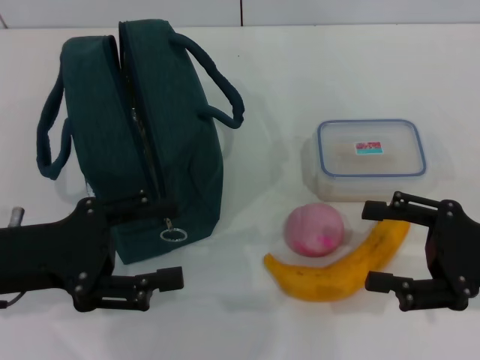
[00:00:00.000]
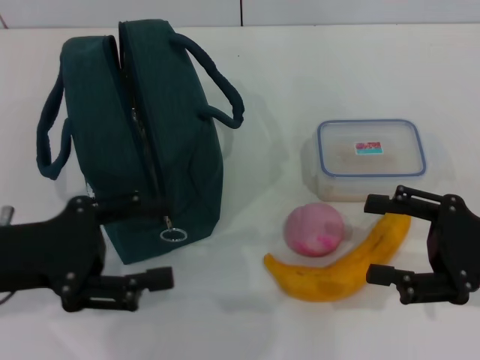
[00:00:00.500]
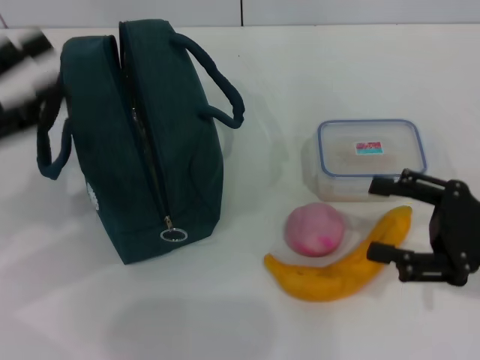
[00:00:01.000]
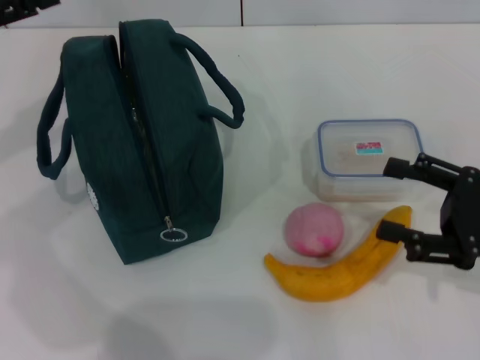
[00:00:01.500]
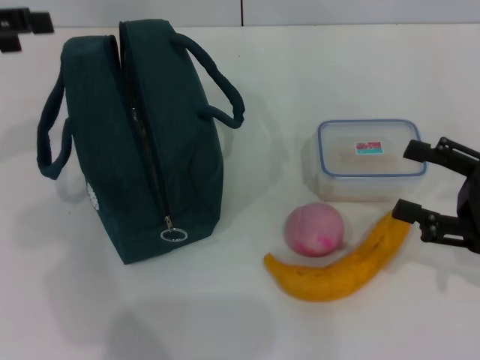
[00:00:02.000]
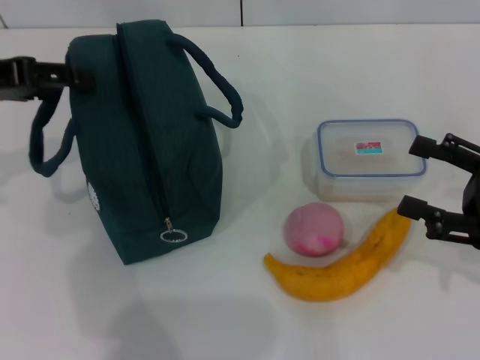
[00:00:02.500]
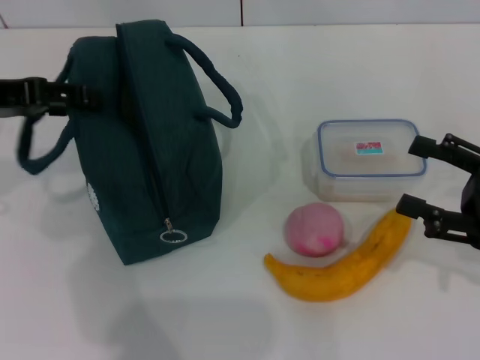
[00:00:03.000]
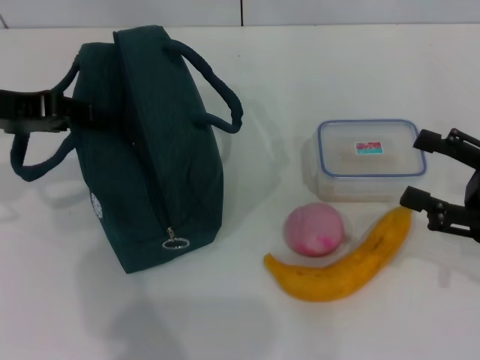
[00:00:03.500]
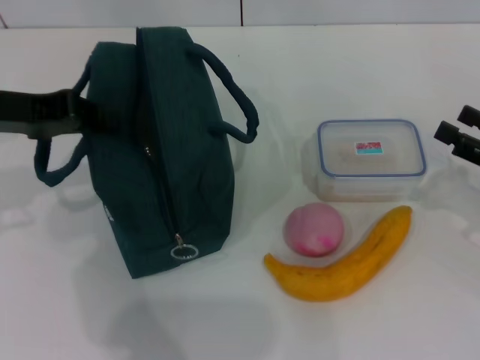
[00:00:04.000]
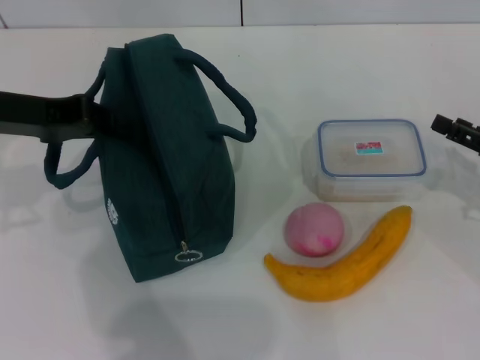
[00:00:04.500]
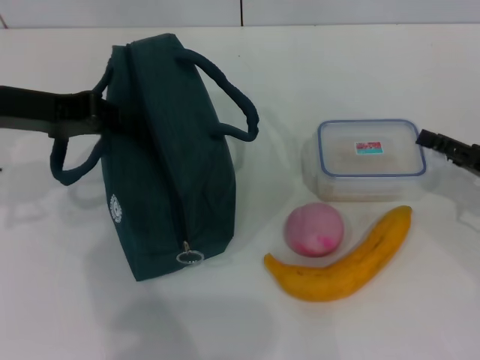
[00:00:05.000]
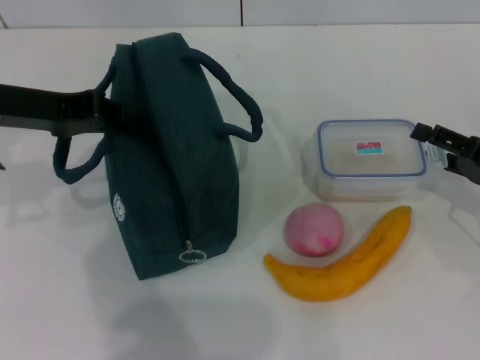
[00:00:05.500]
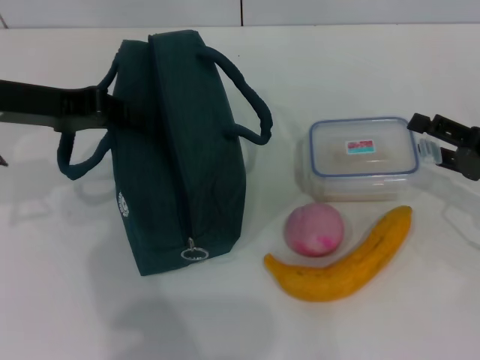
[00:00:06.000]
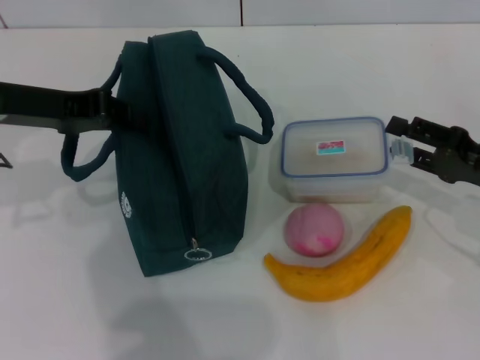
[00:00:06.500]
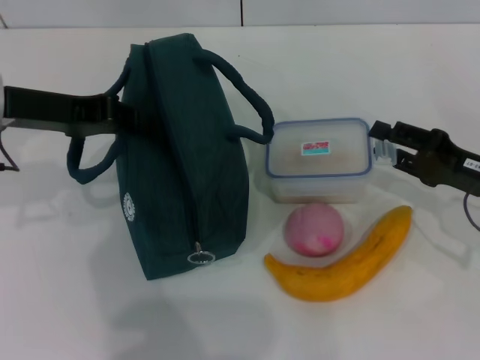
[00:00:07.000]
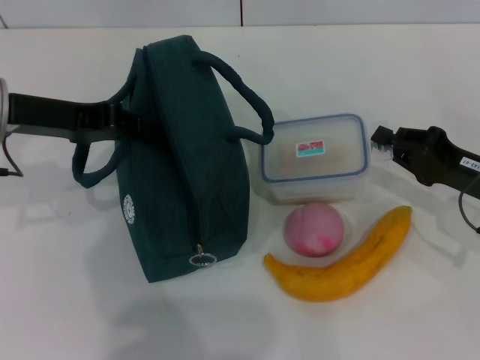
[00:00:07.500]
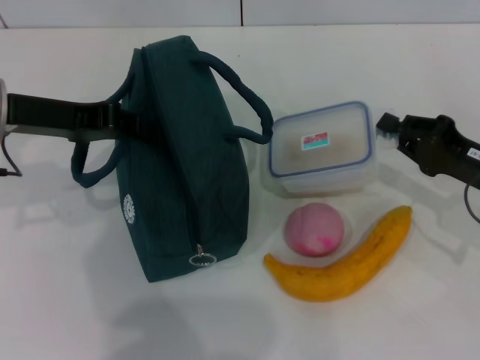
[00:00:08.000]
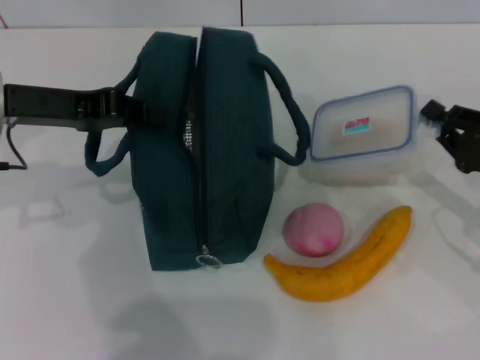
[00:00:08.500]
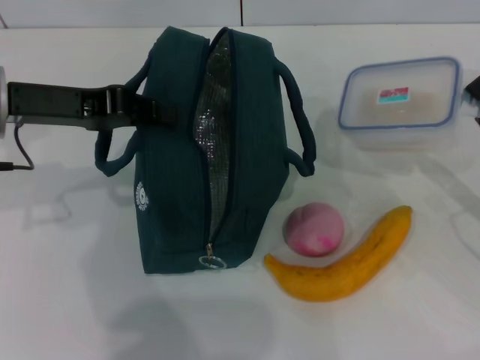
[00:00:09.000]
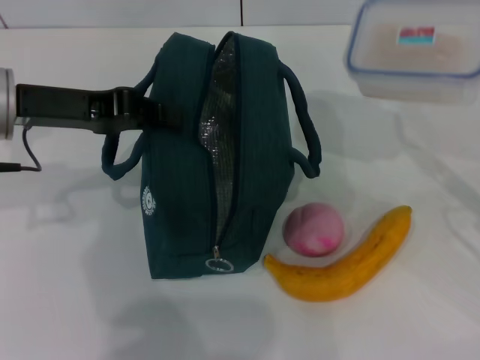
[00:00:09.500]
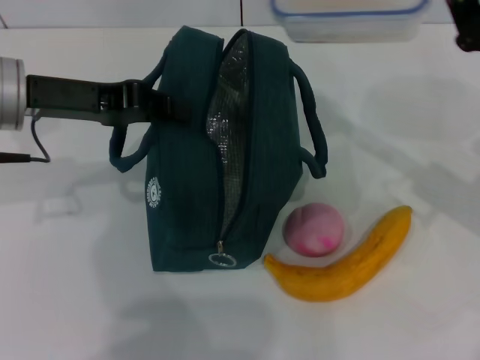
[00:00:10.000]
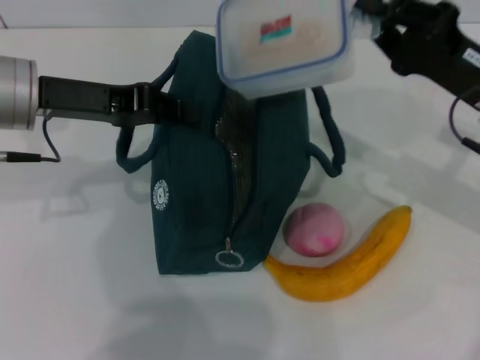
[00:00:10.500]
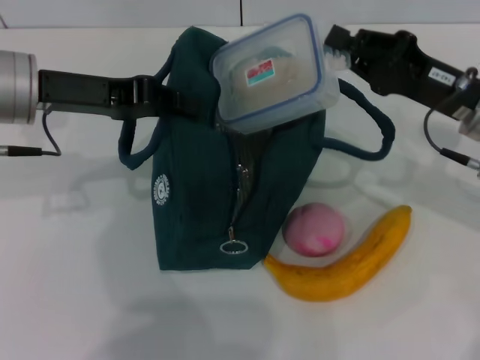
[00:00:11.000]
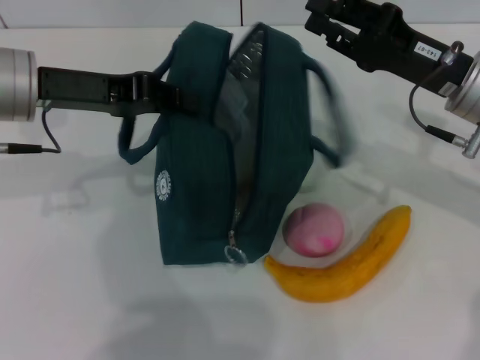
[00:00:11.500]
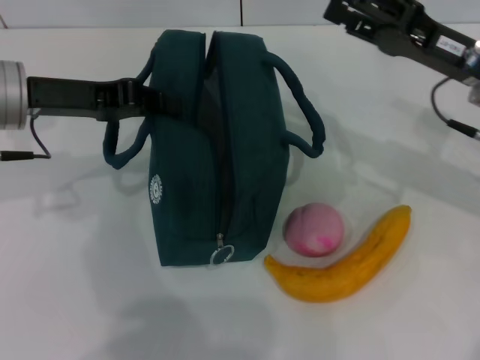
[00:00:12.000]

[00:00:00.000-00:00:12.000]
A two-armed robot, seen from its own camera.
Step, 00:00:00.000 to 00:00:04.000: Hold the lunch bag with your left hand.
Step, 00:00:04.500 to 00:00:07.500: Pick up the lunch box with your right hand.
Step, 00:00:08.000 to 00:00:11.500: Place the lunch box into the lunch bag with your right hand.
00:00:00.000 to 00:00:02.000: The left gripper goes some 15 cm upward, forward and to the left.
00:00:02.000 to 00:00:04.000: The left gripper heads to the right, covering roughly 5 cm, and closes.
00:00:06.000 to 00:00:08.000: The right gripper closes.
00:00:08.000 to 00:00:10.000: The right gripper moves upward, about 10 cm.
00:00:10.000 to 00:00:12.000: The right gripper changes place by roughly 5 cm, and opens its fingers.

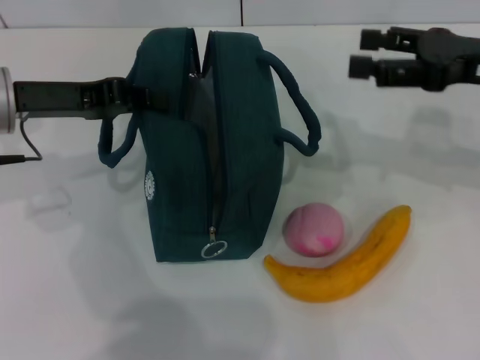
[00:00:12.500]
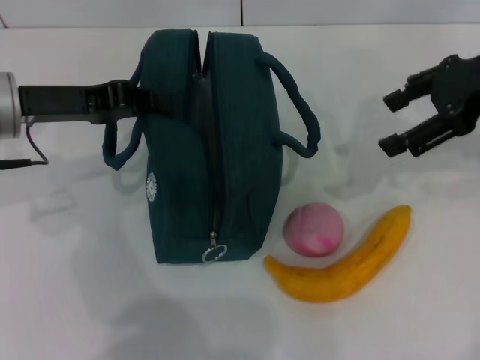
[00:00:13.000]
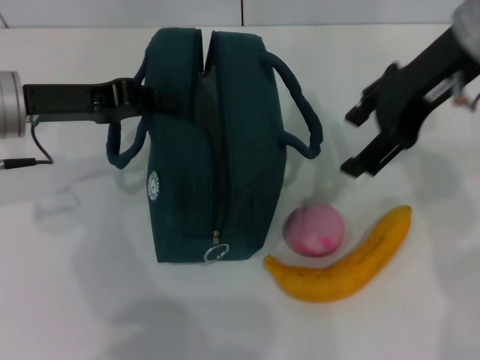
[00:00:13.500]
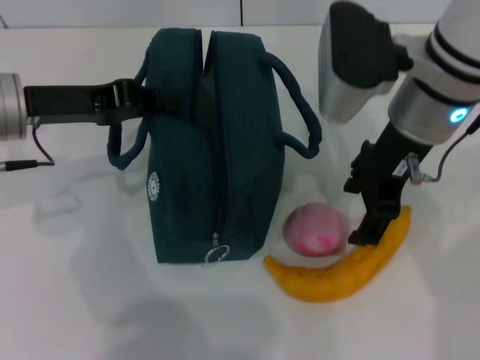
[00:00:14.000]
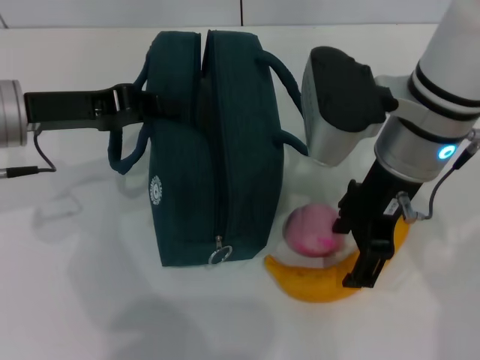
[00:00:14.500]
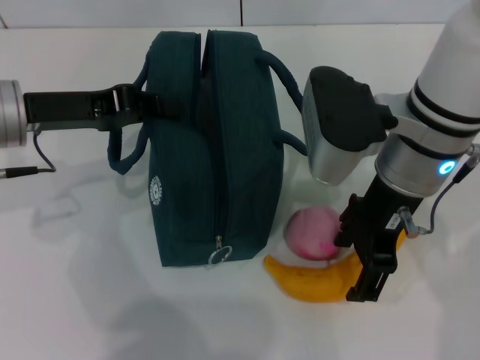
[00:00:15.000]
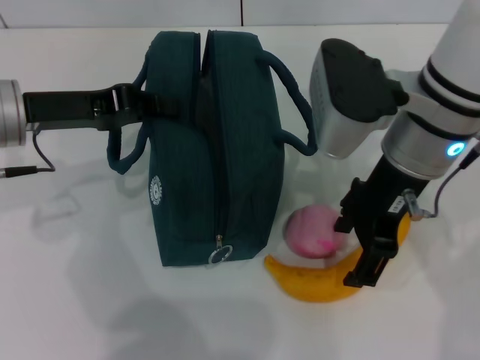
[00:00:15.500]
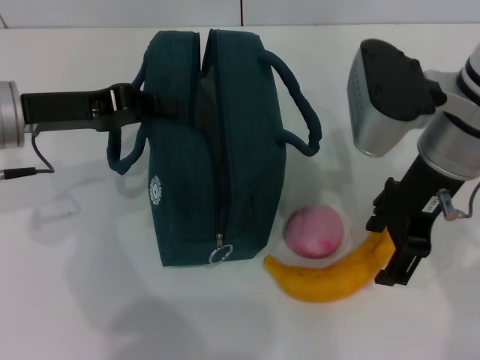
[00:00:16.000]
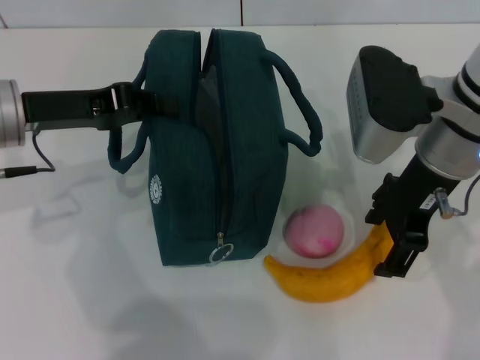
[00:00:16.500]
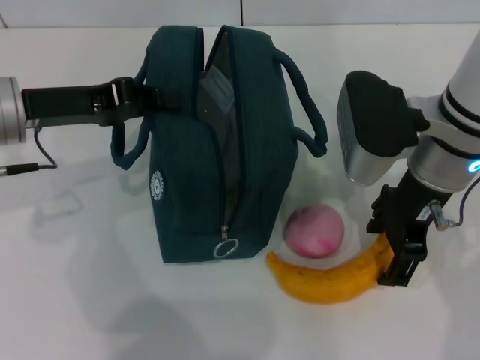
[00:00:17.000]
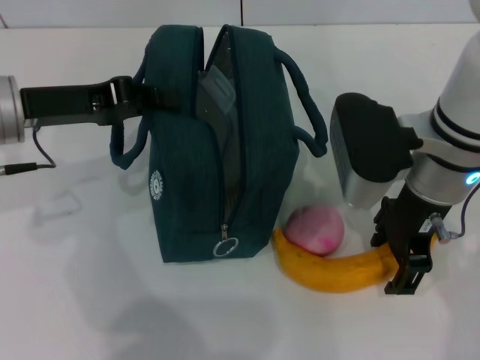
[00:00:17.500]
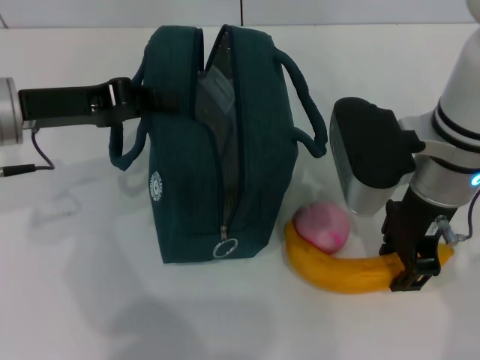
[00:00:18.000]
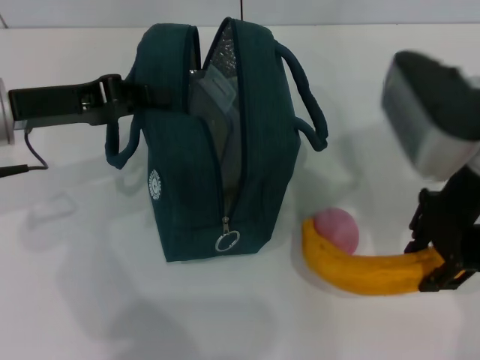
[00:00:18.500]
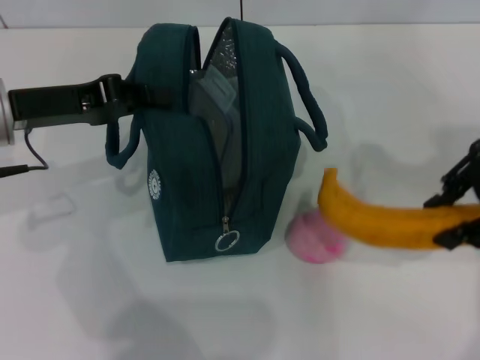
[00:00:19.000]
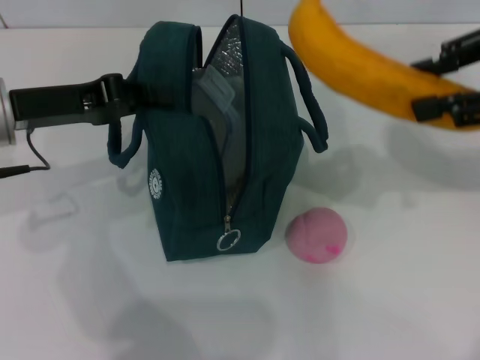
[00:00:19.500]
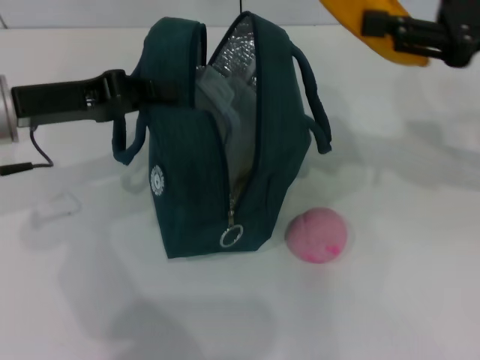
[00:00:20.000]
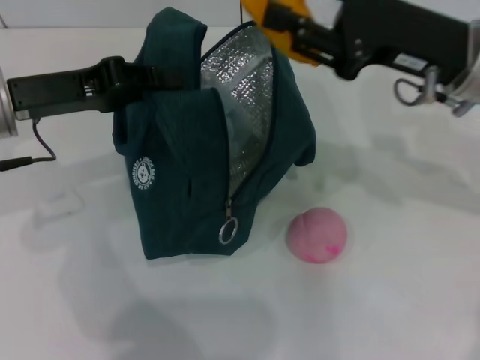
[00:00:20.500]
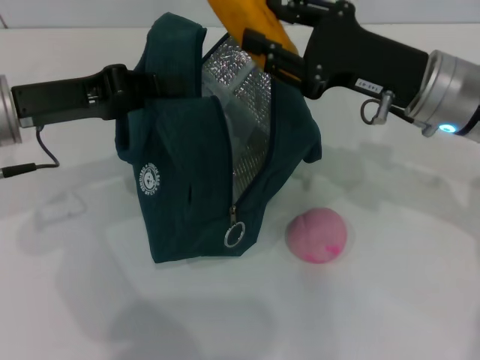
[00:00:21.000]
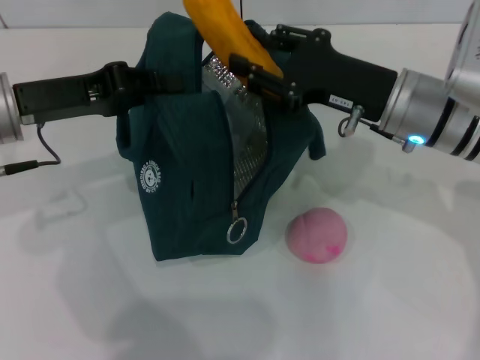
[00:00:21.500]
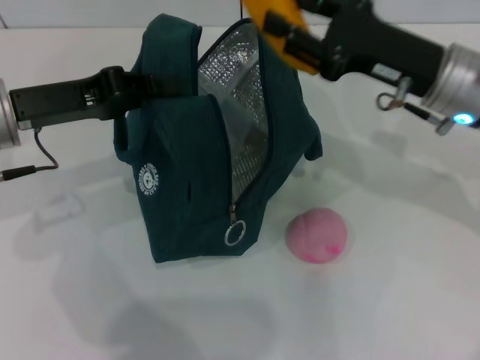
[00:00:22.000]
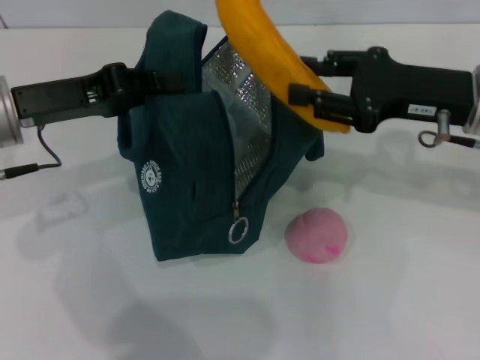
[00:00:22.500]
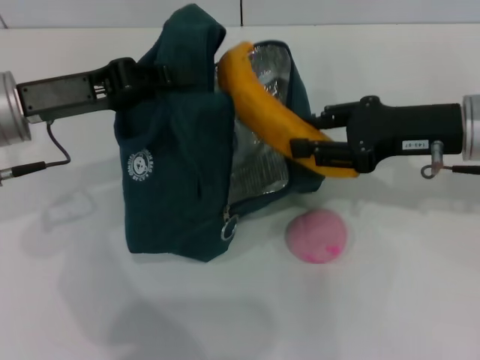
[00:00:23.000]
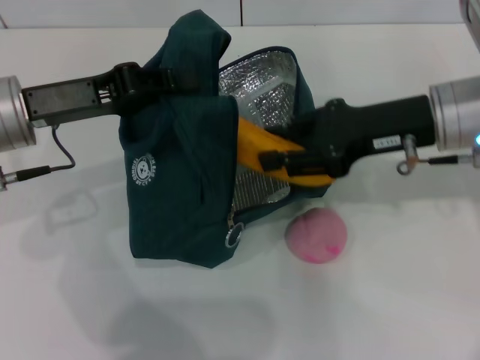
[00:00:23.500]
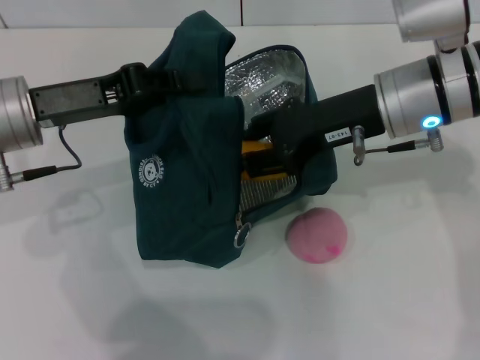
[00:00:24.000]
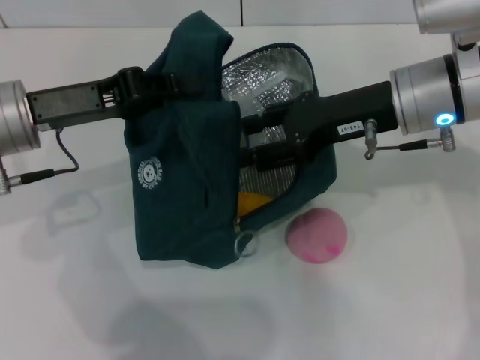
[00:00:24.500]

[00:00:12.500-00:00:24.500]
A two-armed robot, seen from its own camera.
Step, 00:00:12.500 to 00:00:18.000: Take the banana with your right hand.
00:00:12.500 to 00:00:14.500: The right gripper heads to the left, covering about 15 cm.
00:00:14.500 to 00:00:16.500: The grippers stay close to where they were, moving slightly.
00:00:16.500 to 00:00:18.500: The right gripper closes its fingers.
00:00:18.500 to 00:00:20.500: The right gripper reaches about 10 cm to the right, then returns.
00:00:22.500 to 00:00:24.500: The right gripper goes roughly 5 cm to the left.

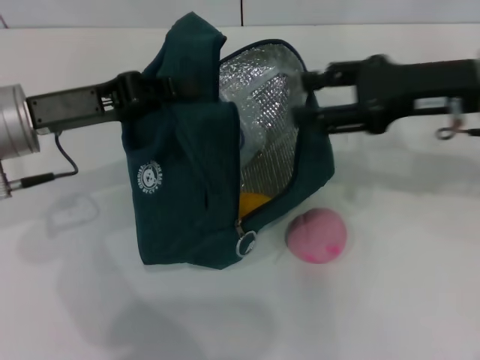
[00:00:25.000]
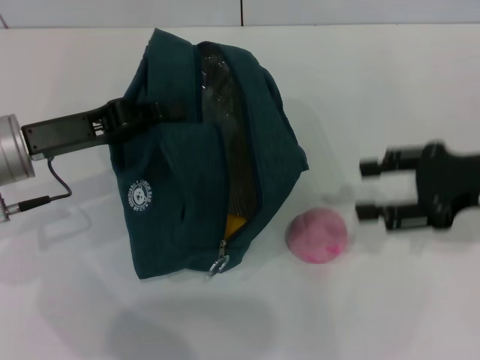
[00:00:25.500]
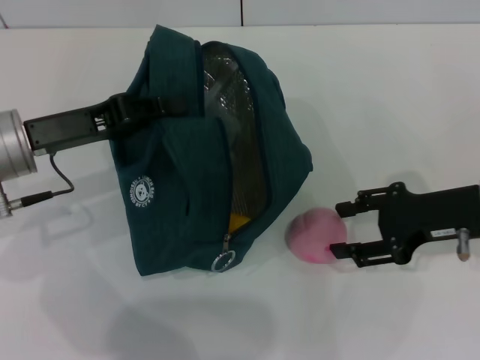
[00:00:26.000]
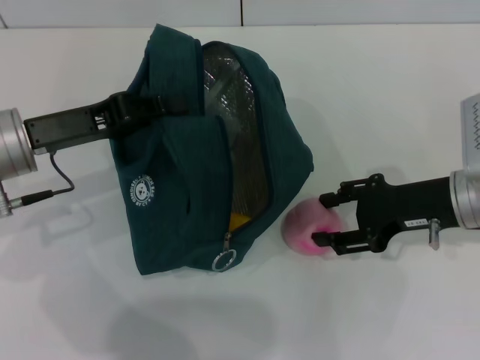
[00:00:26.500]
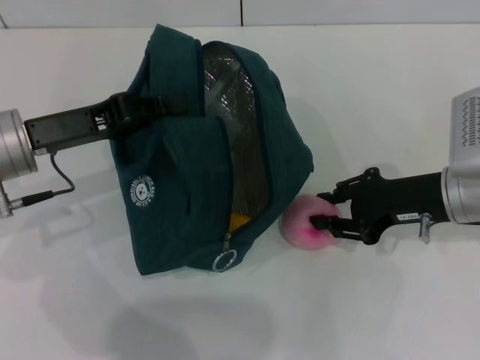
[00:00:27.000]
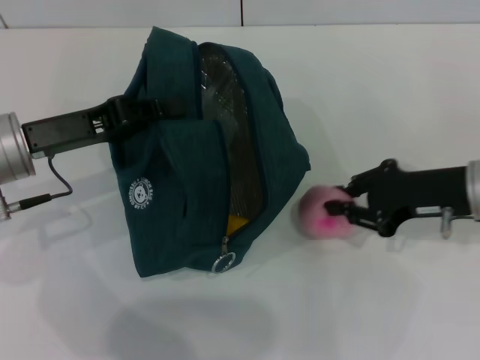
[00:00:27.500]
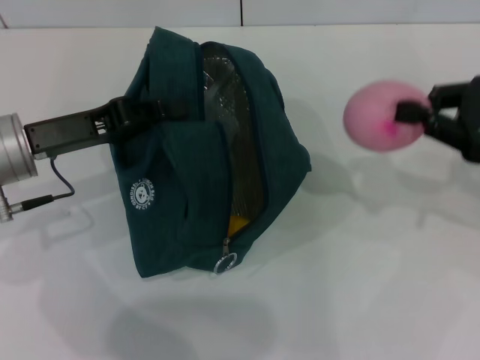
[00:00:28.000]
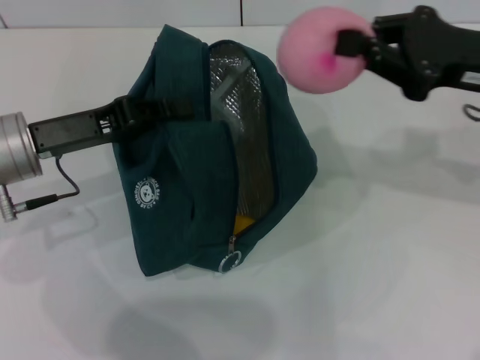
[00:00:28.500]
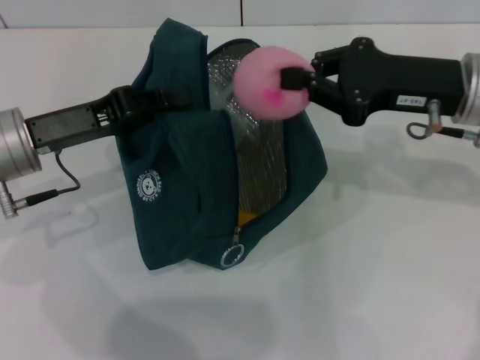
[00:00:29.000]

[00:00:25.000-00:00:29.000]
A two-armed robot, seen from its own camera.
Step, 00:00:25.000 to 00:00:27.000: Grab the peach with your right hand.
00:00:25.000 to 00:00:27.000: The right gripper heads downward, covering roughly 10 cm.
00:00:27.000 to 00:00:29.000: The right gripper heads upward, covering some 10 cm, and closes.
